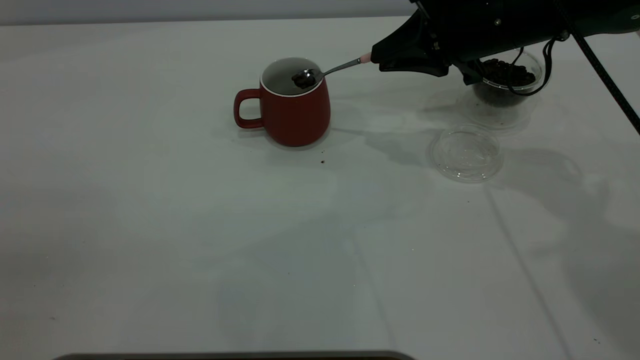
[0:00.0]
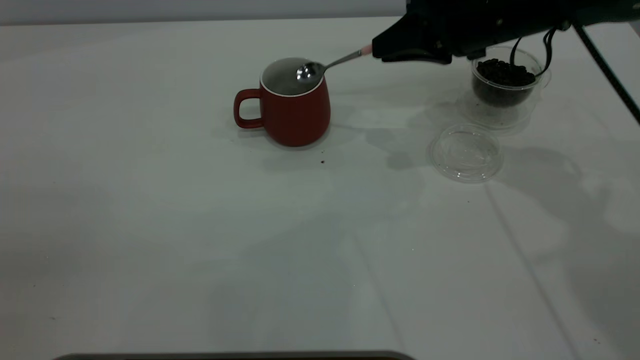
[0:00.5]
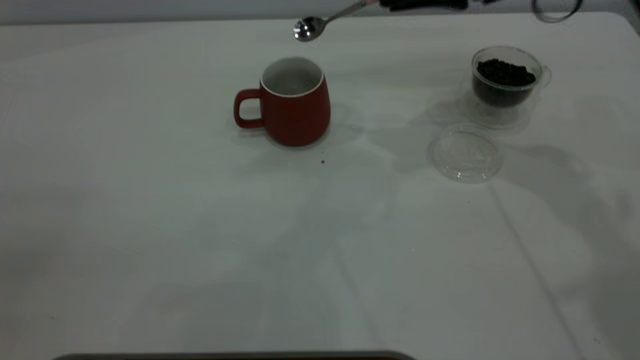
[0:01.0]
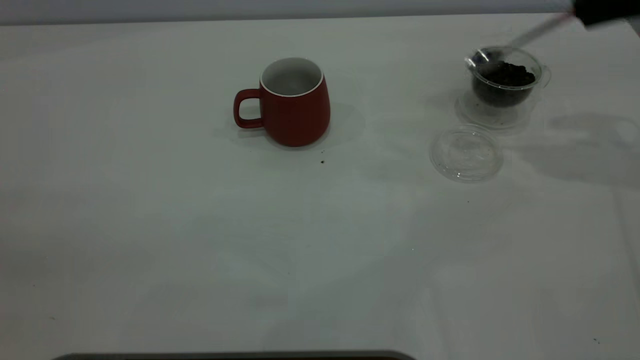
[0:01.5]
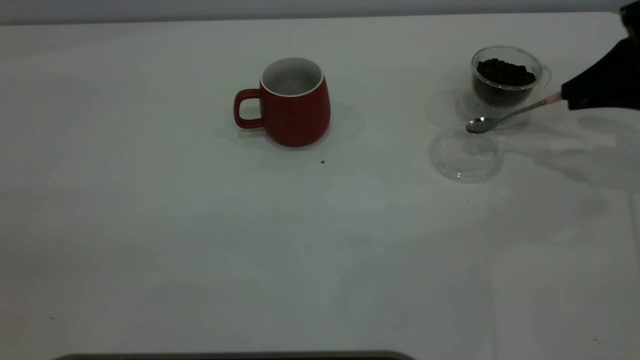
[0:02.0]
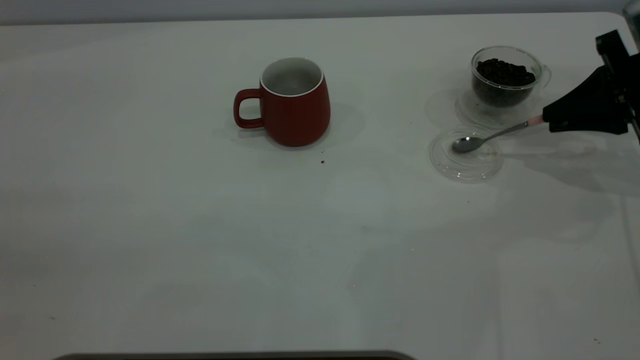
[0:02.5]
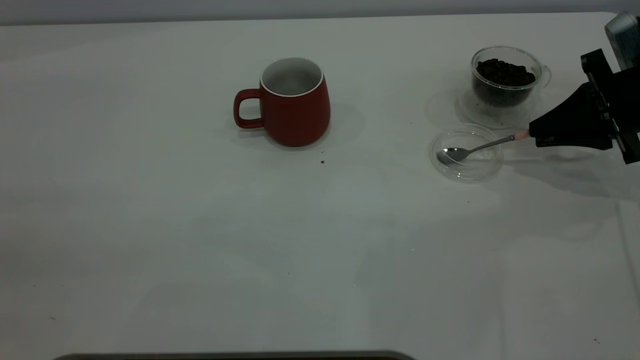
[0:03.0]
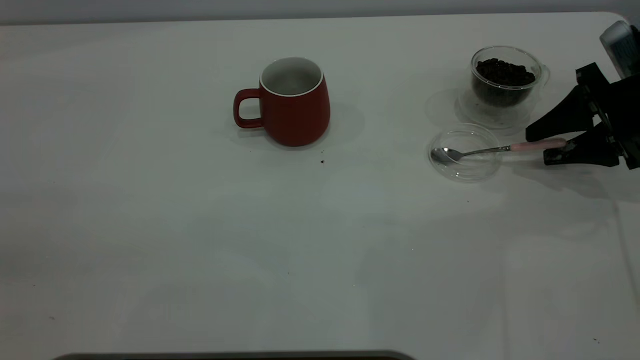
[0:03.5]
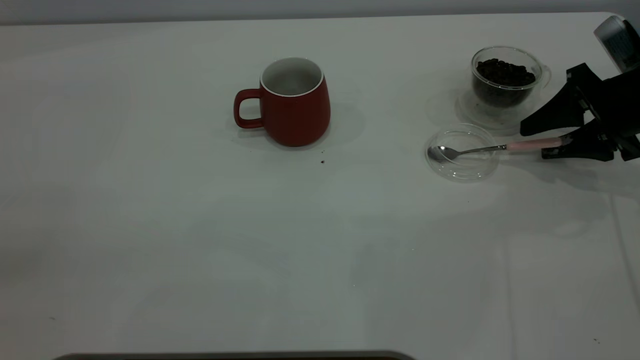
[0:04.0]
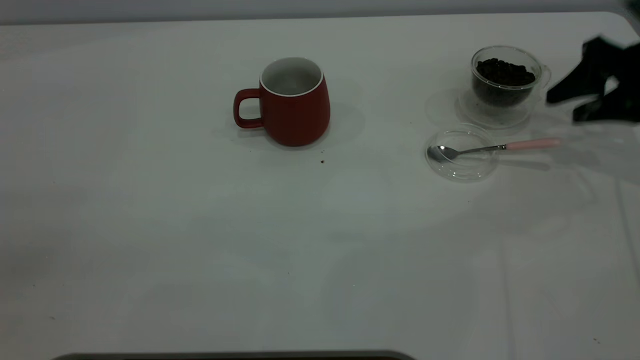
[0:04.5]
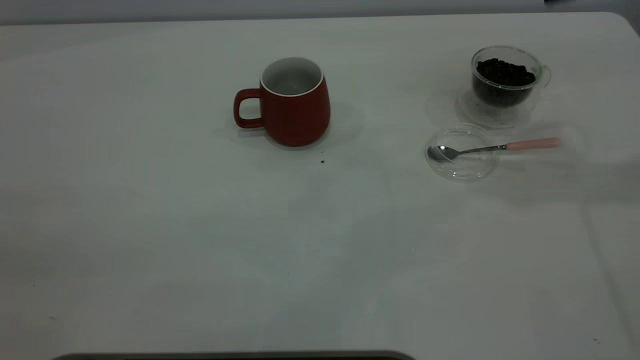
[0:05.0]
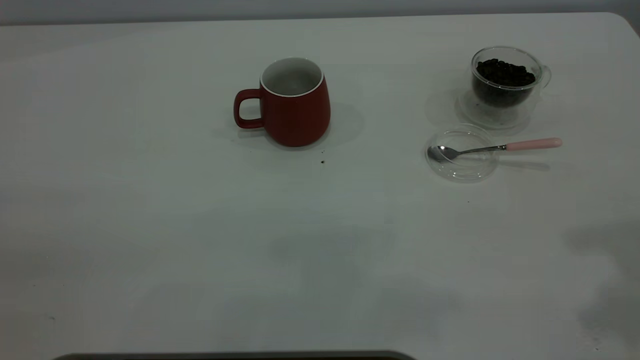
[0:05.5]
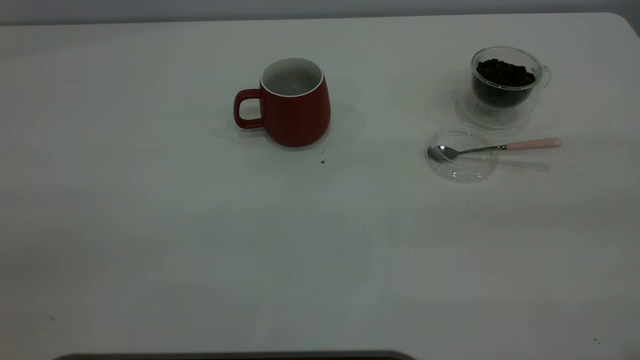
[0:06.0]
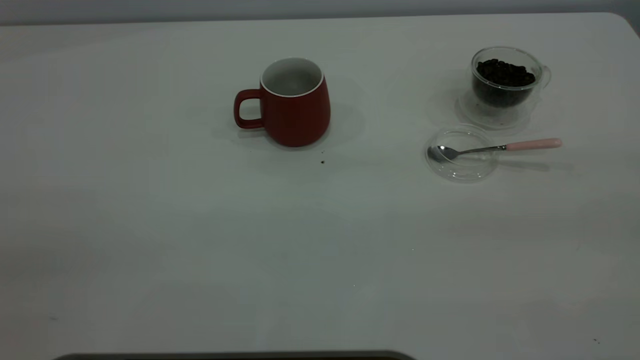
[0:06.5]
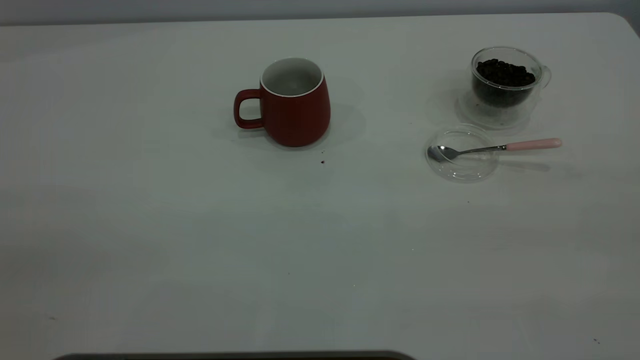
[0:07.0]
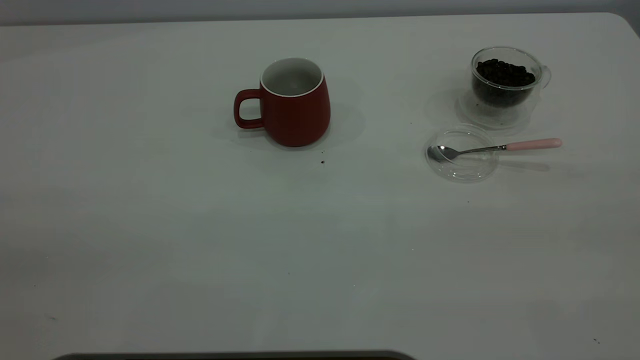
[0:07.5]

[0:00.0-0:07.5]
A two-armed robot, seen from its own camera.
Task of the whole recording: the left gripper place the red cup in the center of the table, the right gripper take the pink spoon from the cup lid and scoop out the coffee beans from the coffee cup and put them into the red cup, the right gripper put the spoon back into the cup lid.
Step, 0:01.0 to 0:04.0: Place the spoon back in its original place.
0:00.0 to 0:02.0: The right gripper is displaced to the right by roughly 20 cm.
0:02.0 to 0:04.0: The right gripper travels downward by approximately 5 cm, and opens its fingers.
0:04.0 to 0:05.5: The right gripper shifts some 35 cm upward and backward.

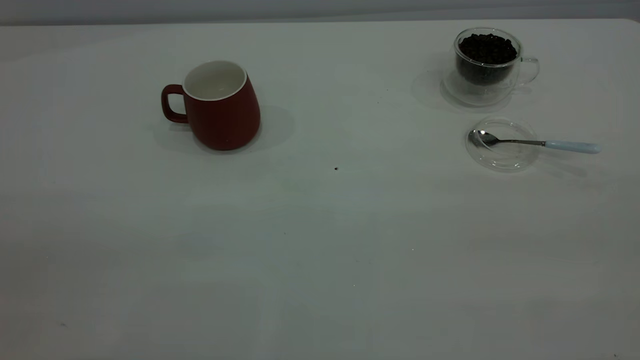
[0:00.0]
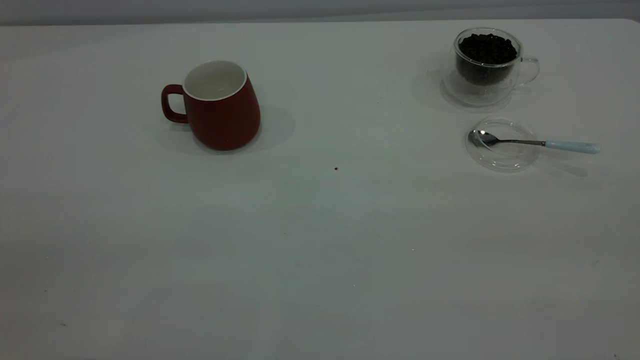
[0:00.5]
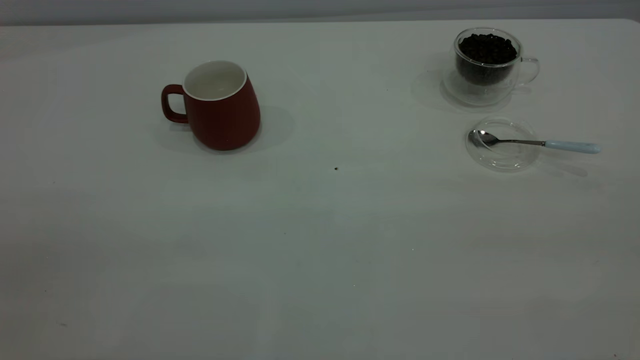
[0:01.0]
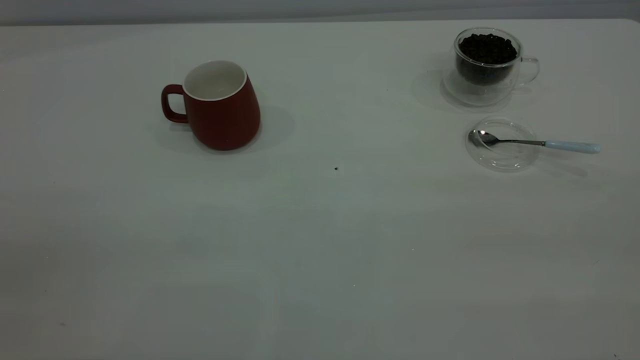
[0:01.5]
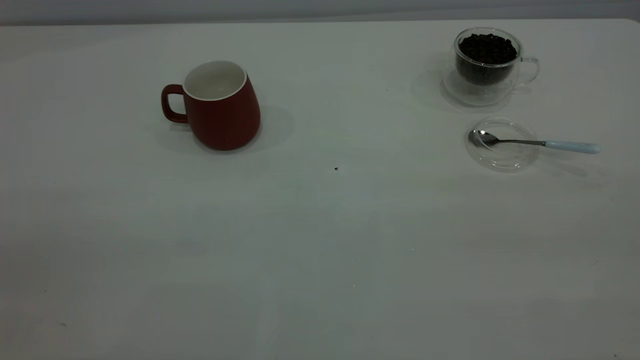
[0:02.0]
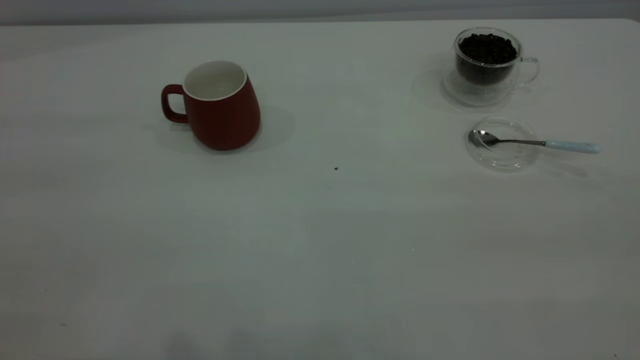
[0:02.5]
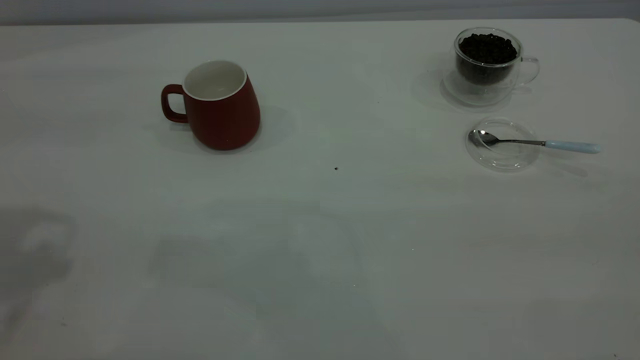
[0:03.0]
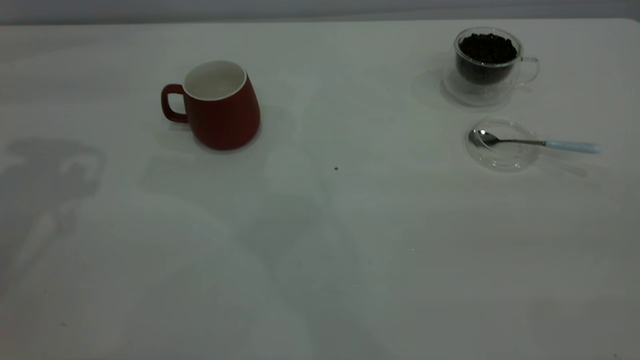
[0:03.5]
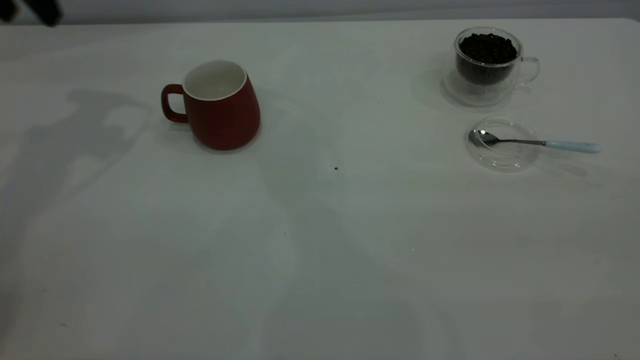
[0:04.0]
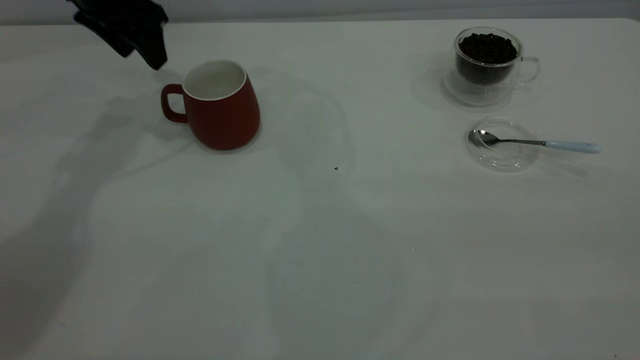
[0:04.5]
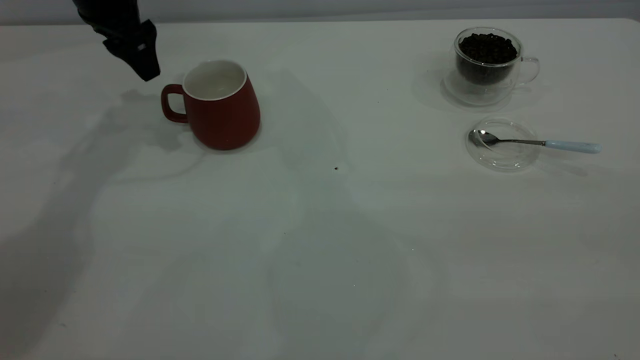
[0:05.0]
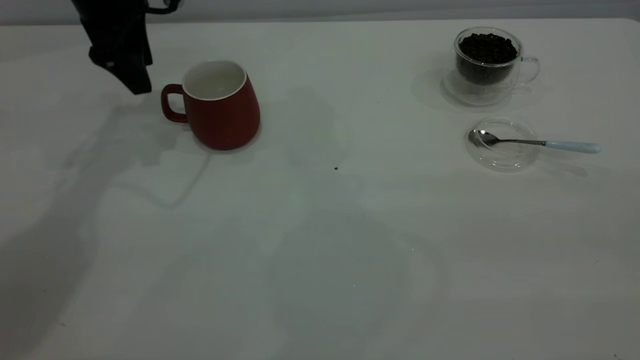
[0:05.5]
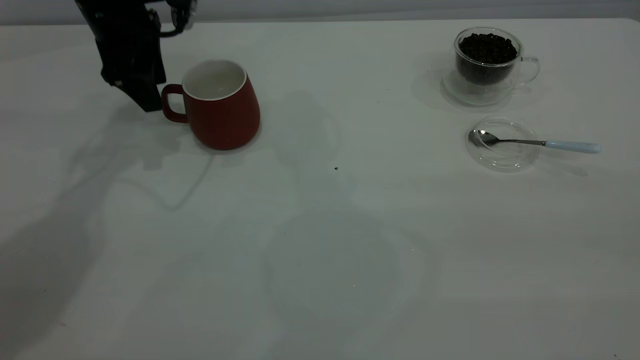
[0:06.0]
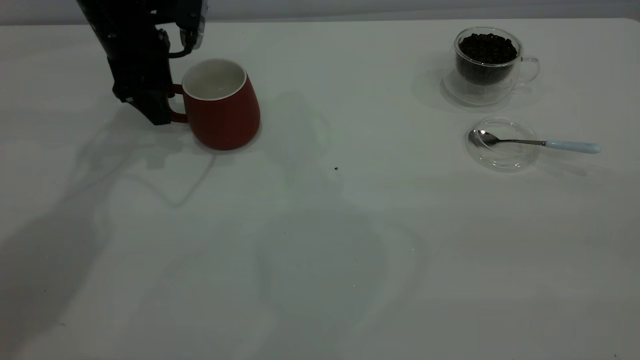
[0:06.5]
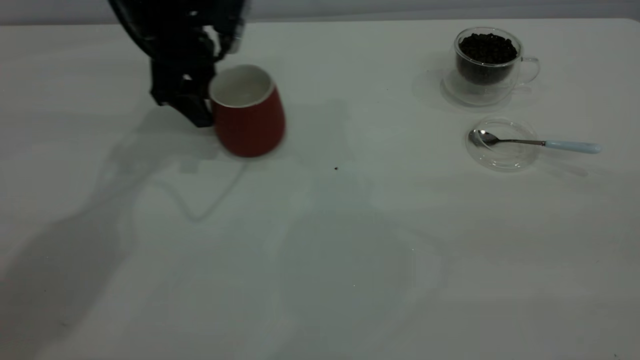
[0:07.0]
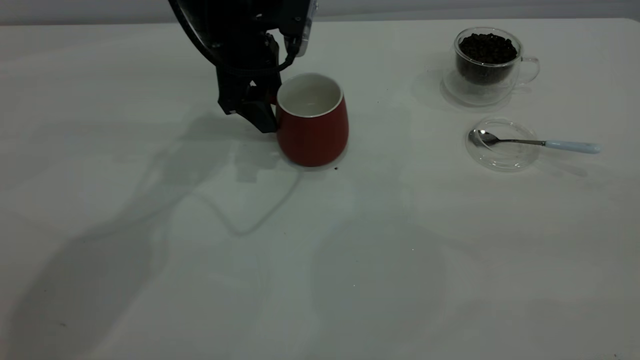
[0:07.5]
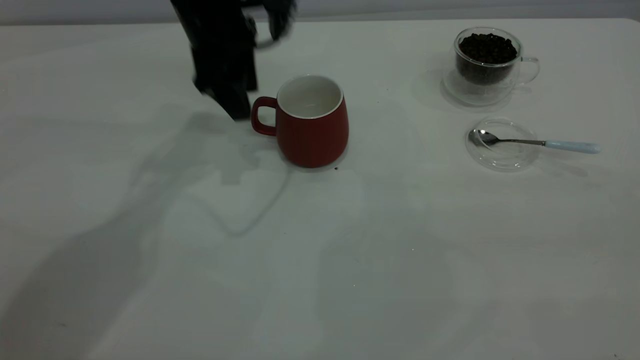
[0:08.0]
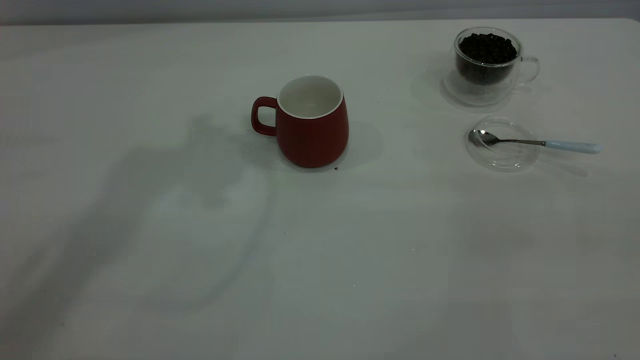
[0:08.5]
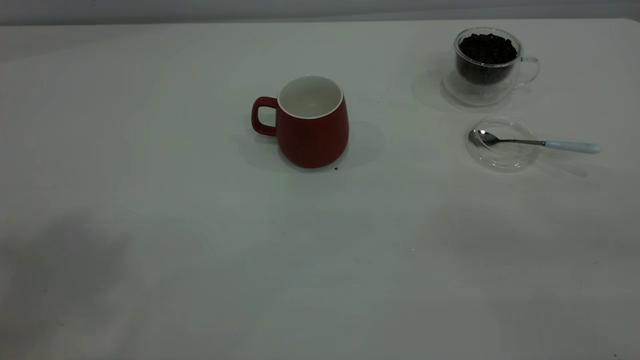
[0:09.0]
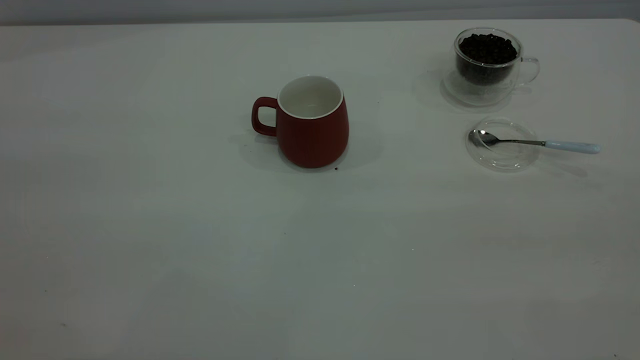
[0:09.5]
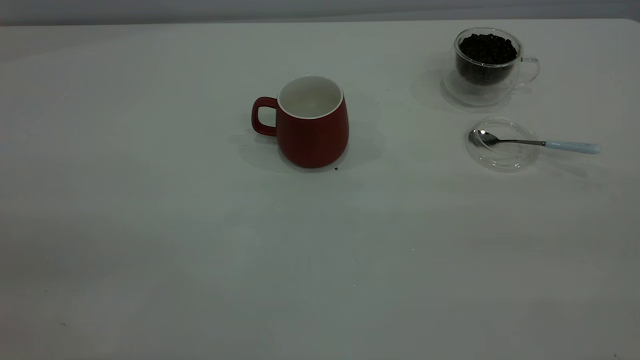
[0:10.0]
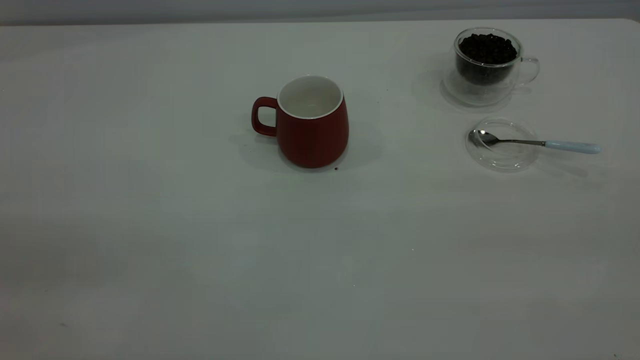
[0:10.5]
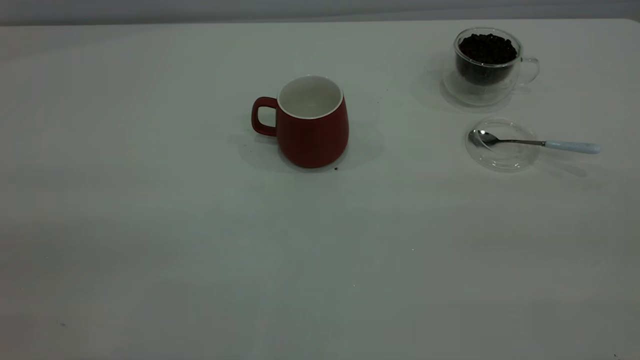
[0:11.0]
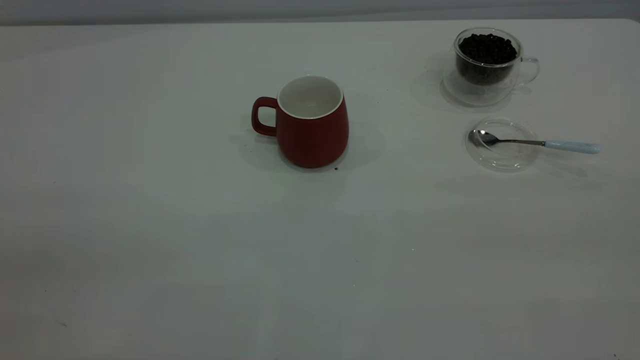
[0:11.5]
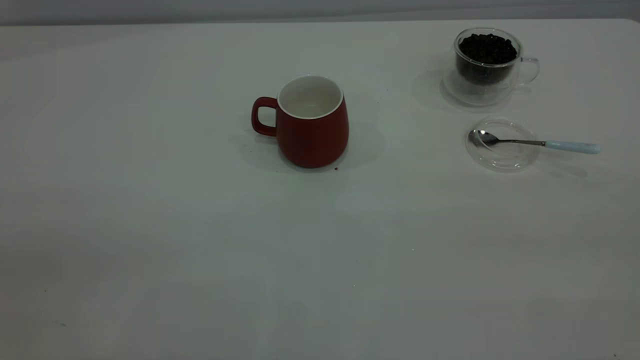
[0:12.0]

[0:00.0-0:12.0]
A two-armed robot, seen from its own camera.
Task of the whole recording: the left gripper place the red cup in the center of the table, the right gripper take the blue spoon from the cup lid and scoop out the coffee beans from the coffee cup and put them into the red cup, the right gripper put the spoon back into the cup lid.
Step, 0:00.0 to 0:08.0: Move the cup to the center of view.
0:00.0 to 0:02.0: Both grippers stay put.
0:04.0 to 0:06.0: The left gripper travels downward and to the right by roughly 15 cm.
0:06.0 to 0:08.0: The left gripper goes roughly 10 cm to the right.
0:08.0 to 0:10.0: The left gripper travels backward and upward by approximately 50 cm.
